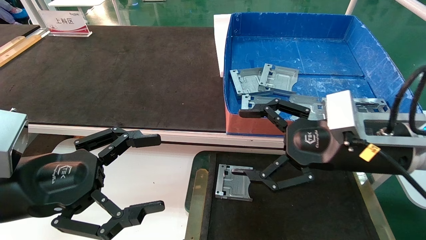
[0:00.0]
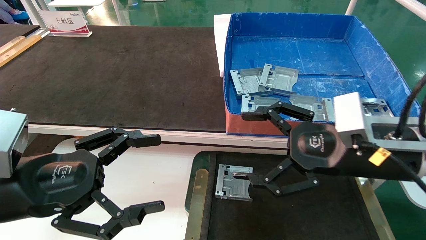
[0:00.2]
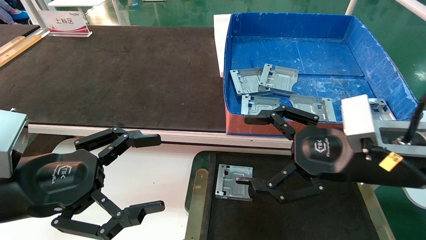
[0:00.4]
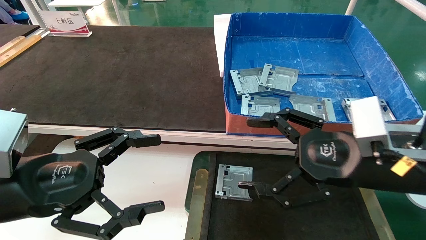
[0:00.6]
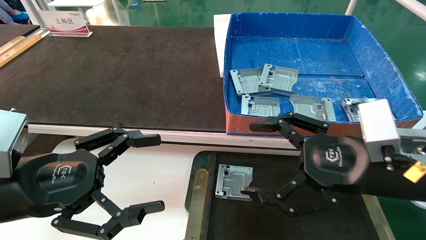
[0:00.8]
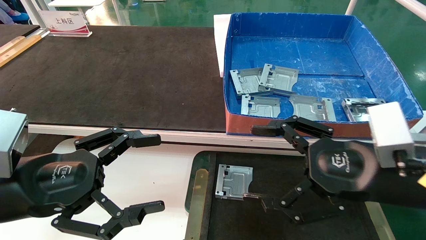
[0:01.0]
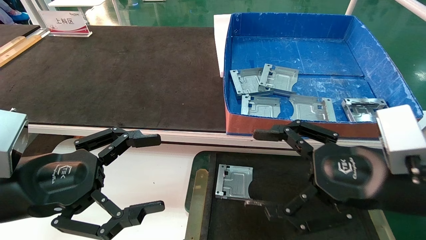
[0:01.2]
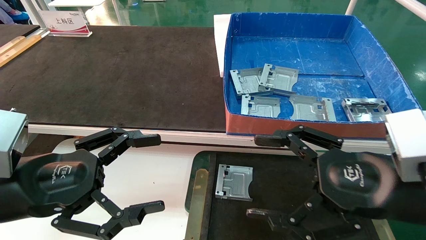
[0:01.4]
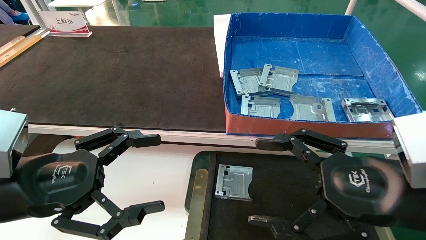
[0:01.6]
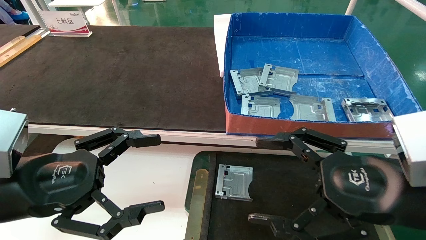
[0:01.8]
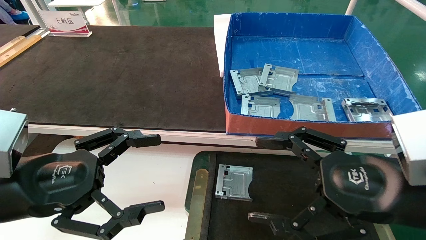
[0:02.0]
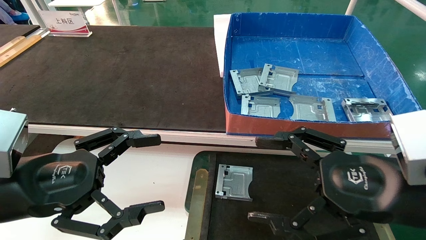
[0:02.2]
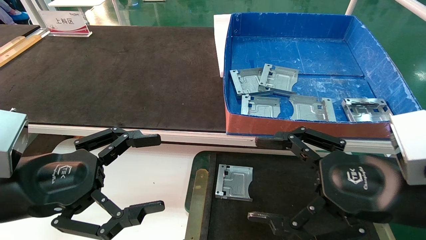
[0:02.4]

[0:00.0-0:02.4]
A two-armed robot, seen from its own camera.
Task of the whole recording: pick up parts and place them into a black container.
0:00.0 to 0:01.2: The right gripper goes about 5 cm backward.
0:01.2 to 0:02.4: The grippers move only a little.
